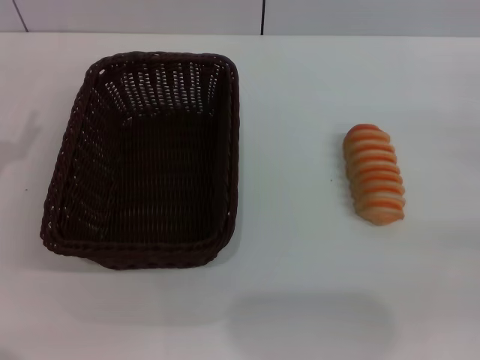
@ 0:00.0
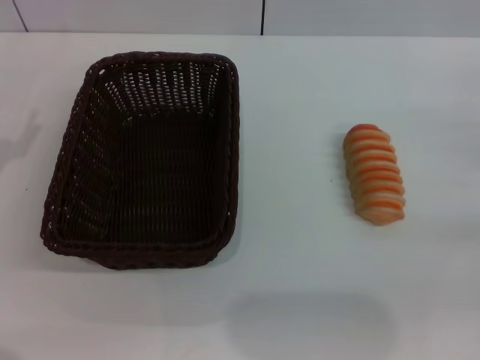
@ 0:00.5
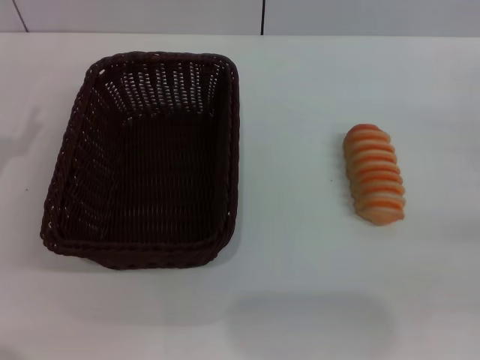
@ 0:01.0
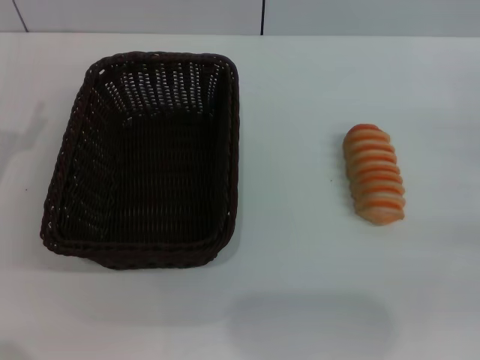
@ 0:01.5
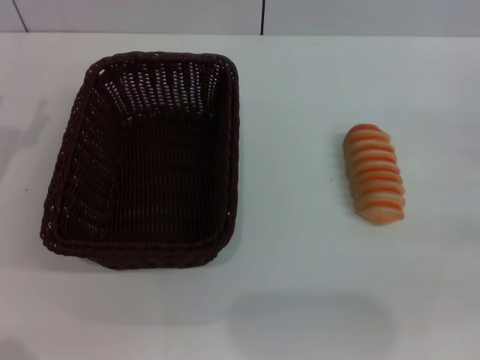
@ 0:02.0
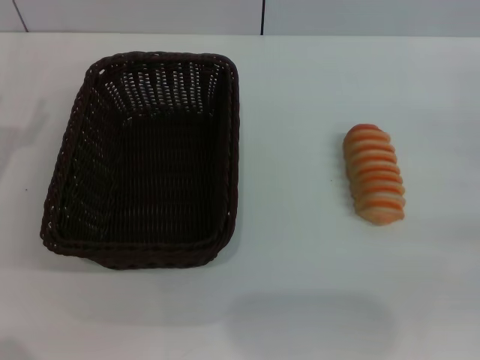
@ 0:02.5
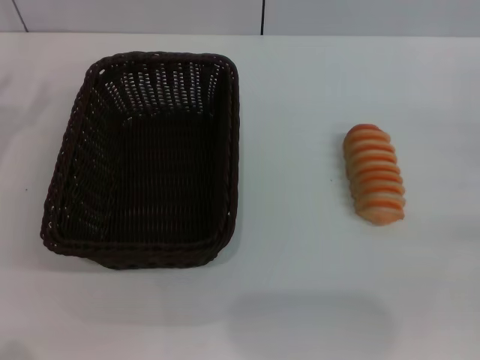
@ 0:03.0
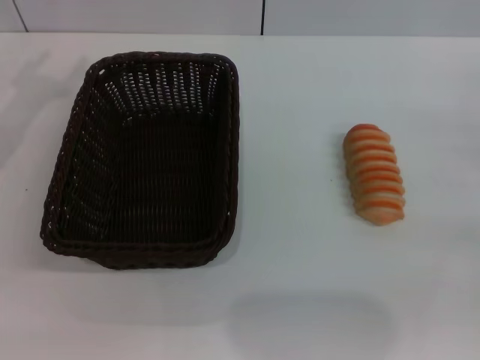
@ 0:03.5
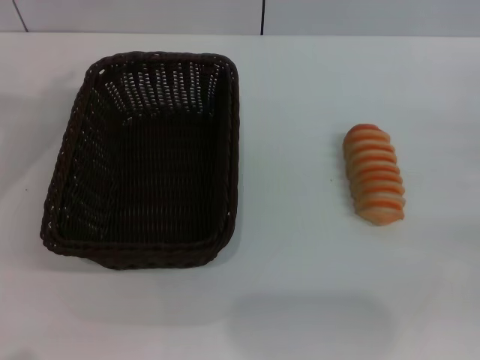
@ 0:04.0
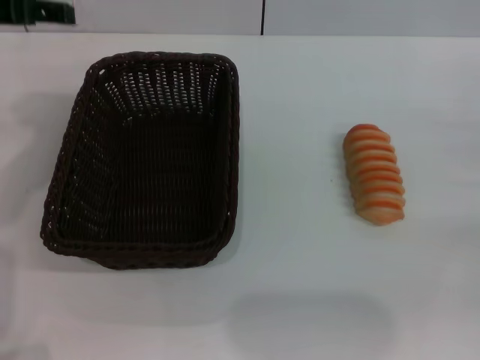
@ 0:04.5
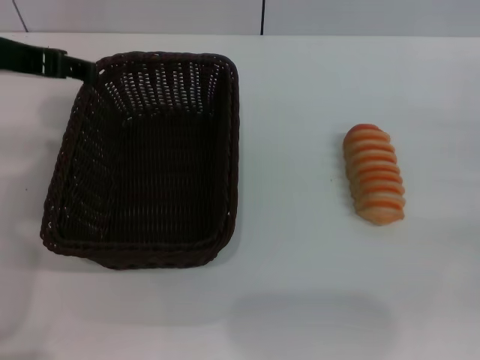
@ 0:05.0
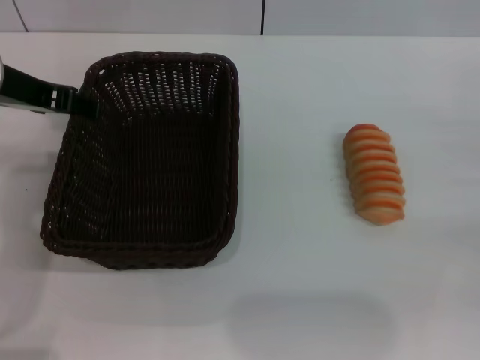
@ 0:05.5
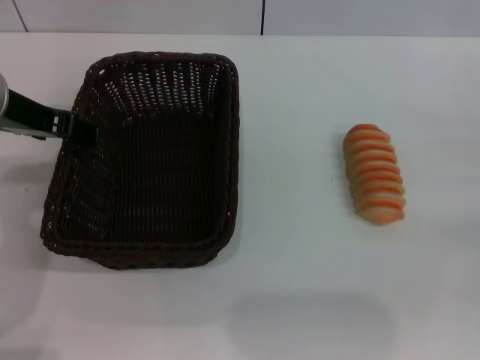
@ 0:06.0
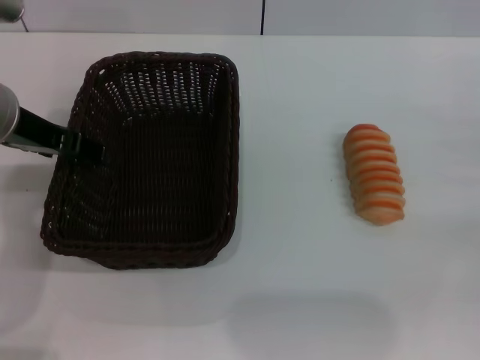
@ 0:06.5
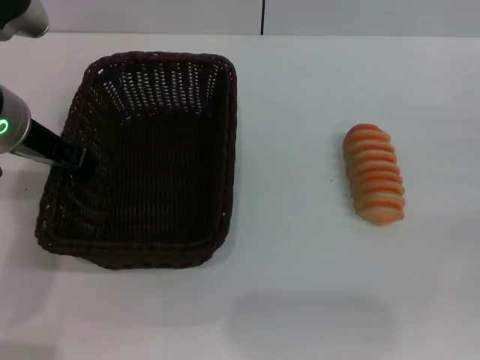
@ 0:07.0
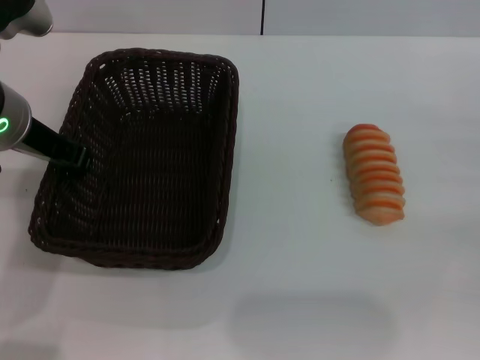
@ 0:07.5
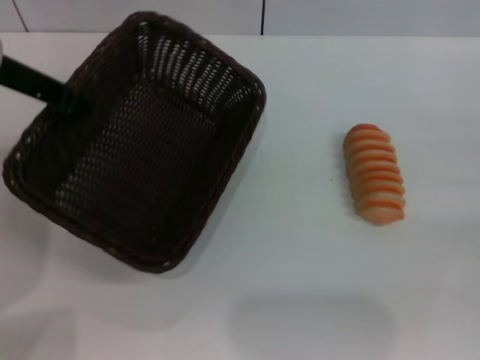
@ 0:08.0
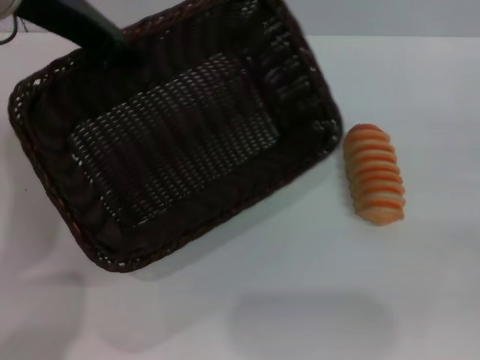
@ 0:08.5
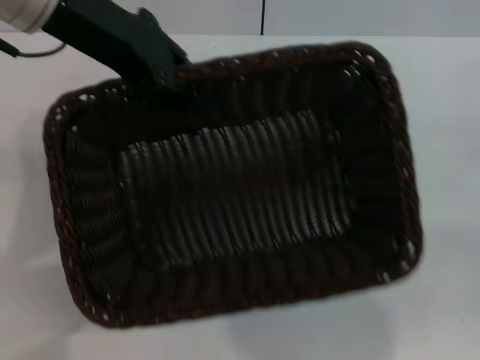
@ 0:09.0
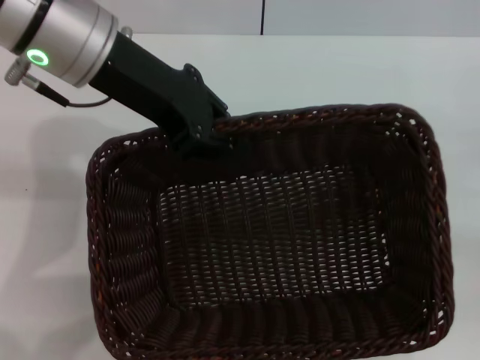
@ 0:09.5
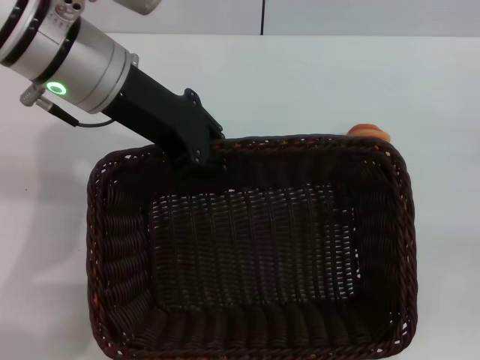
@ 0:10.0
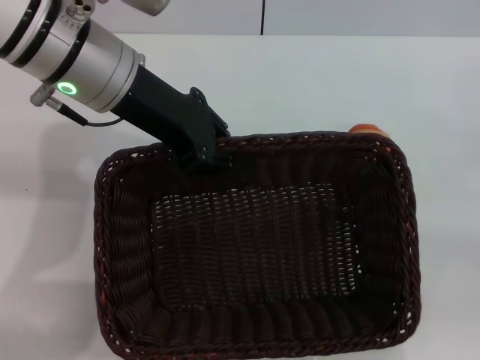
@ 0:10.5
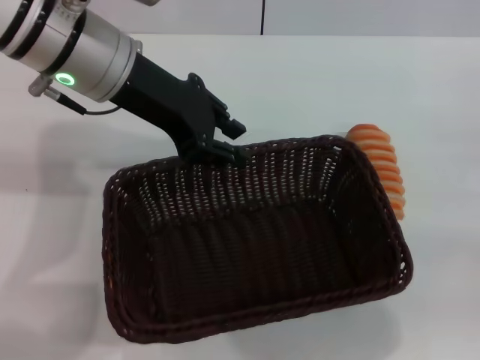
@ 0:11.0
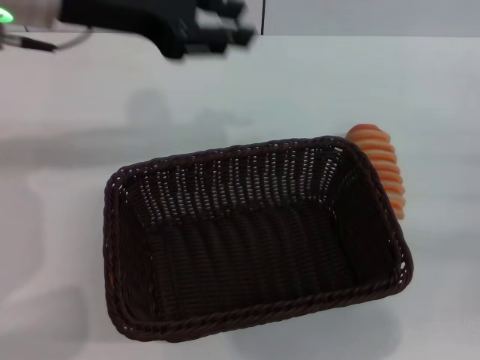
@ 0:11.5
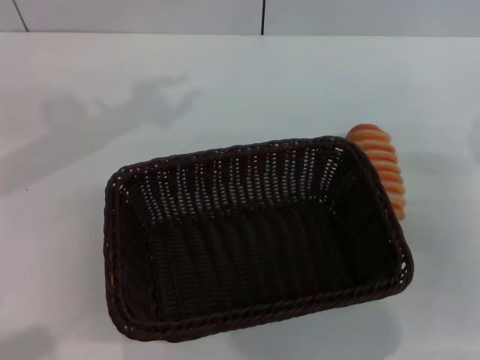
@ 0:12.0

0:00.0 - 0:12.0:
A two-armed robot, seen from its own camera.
Step, 0:00.0 - 0:06.5: Grasp the basket with the left gripper.
Step, 0:07.5 - 0:11.0: Place the basket in the center of the table with the left gripper.
0:04.0 - 0:06.0: The left gripper is displaced downward and to the right by some 10 cm.
0:06.0 - 0:08.0: The left gripper closes up.
0:08.0 - 0:10.0: The left gripper goes about 10 cm to the right.
0:10.0 - 0:12.0: The grippers both shift to the left by approximately 10 cm.

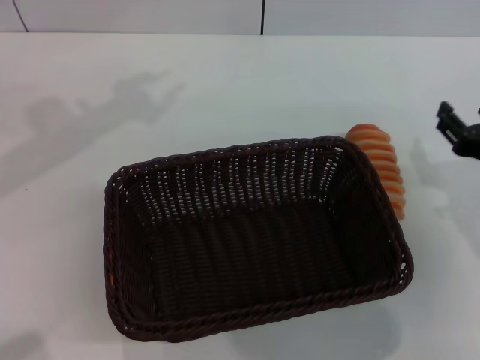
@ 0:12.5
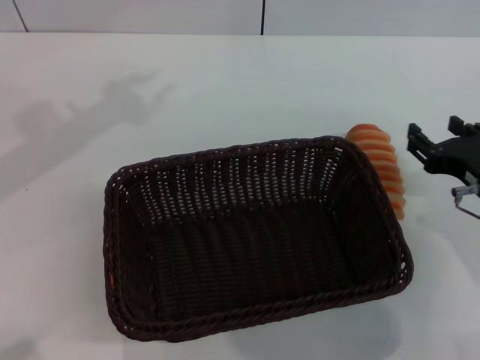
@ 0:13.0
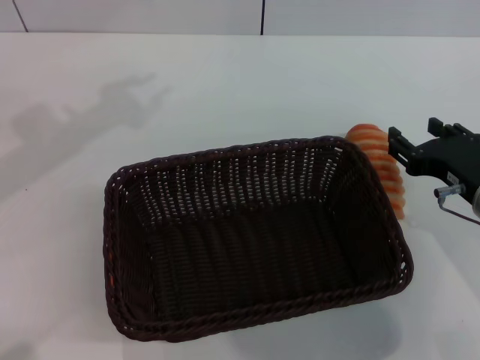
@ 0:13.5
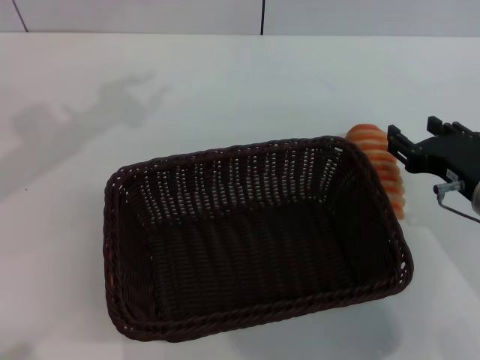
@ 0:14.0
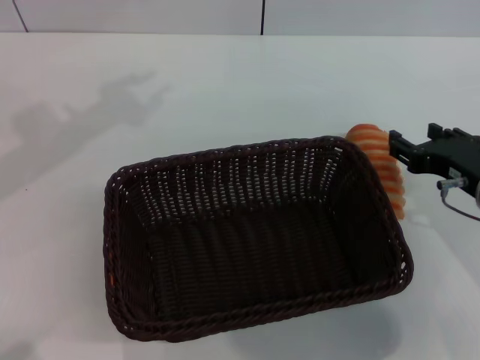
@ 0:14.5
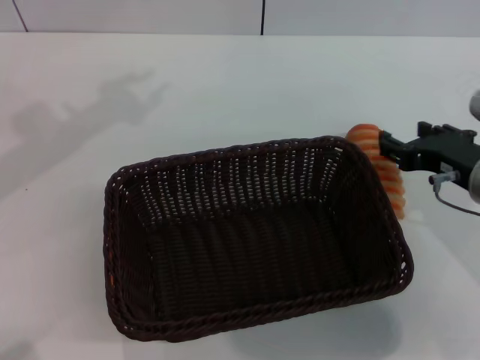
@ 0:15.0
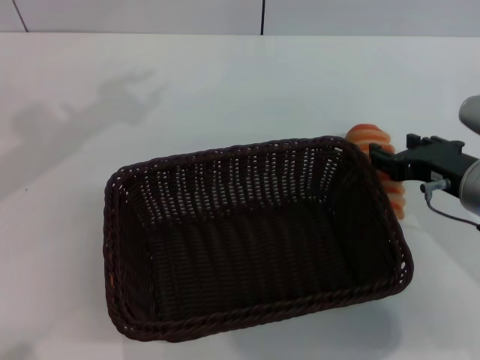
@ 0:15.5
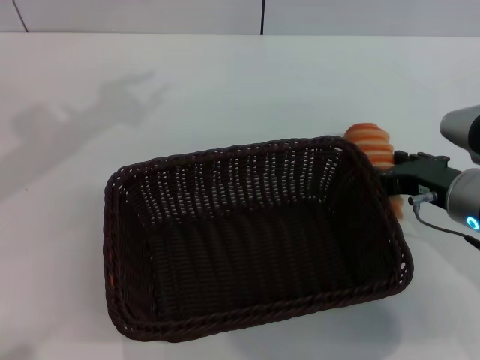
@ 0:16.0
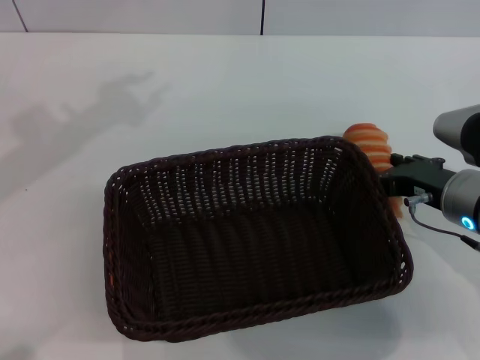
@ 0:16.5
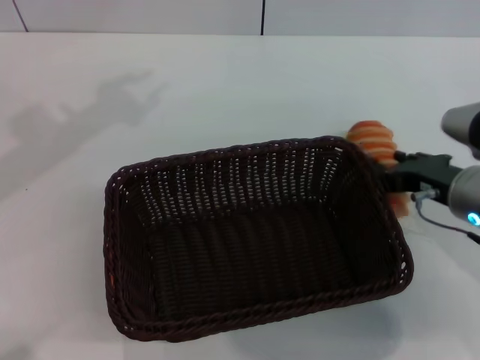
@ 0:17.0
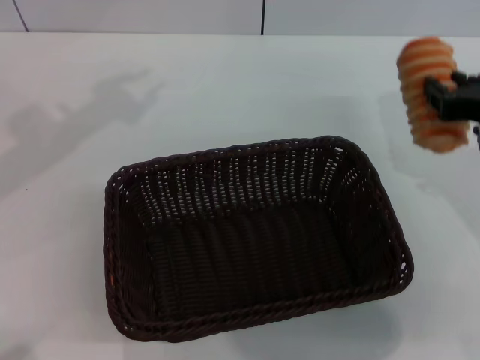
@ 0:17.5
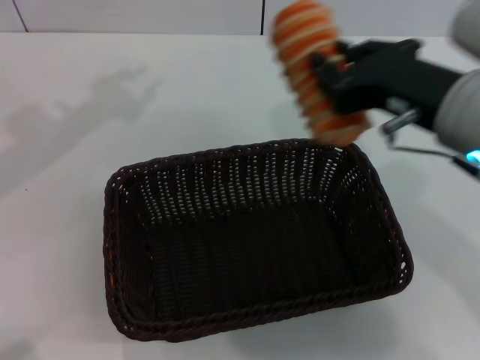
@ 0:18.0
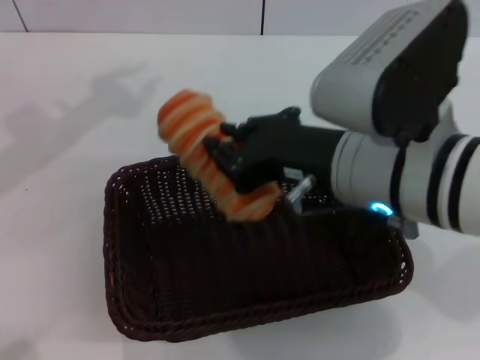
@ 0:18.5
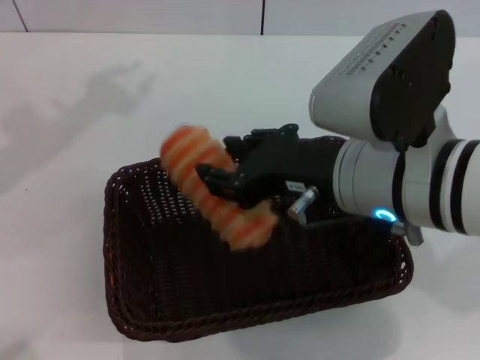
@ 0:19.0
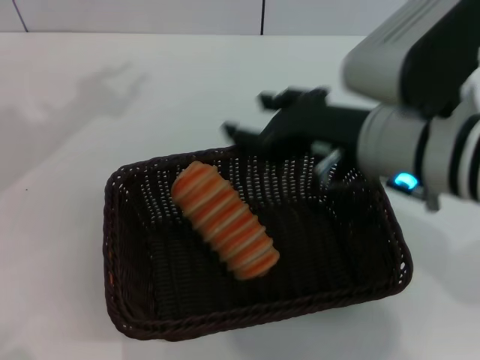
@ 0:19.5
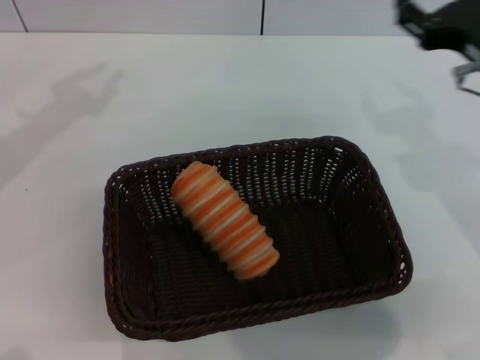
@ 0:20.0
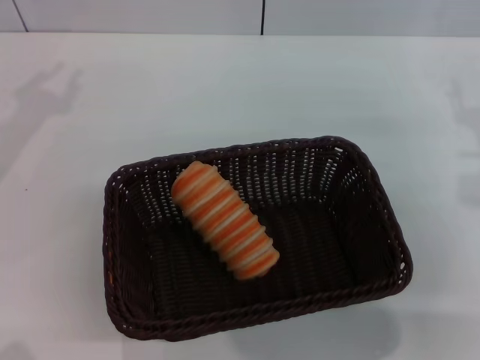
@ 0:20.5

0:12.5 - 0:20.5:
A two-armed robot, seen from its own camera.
Step, 0:12.5 - 0:16.5: Grasp the long bread with right gripper.
Step, 0:17.5 - 0:19.5: Place the long bread in the basket with right gripper.
0:12.5 - 0:14.5: The grippers stay close to where they were, moving slightly.
0:14.5 - 0:16.5: The grippers stay close to where they were, moving slightly.
0:16.5 - 0:18.5: The right gripper goes some 15 cm to the left and upward, and closes its fingers.
0:18.5 - 0:20.5: The left gripper shifts about 15 cm downward and to the left; the right gripper goes about 20 cm to the right, and opens.
